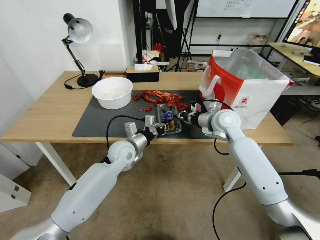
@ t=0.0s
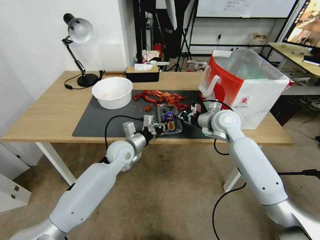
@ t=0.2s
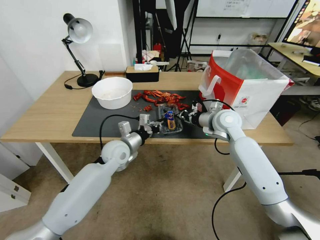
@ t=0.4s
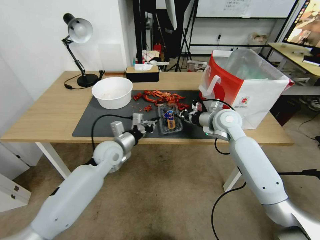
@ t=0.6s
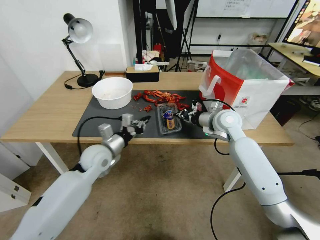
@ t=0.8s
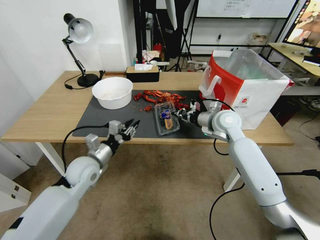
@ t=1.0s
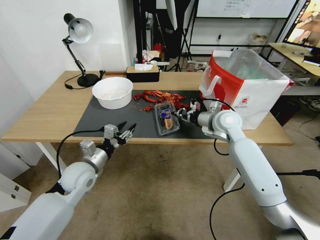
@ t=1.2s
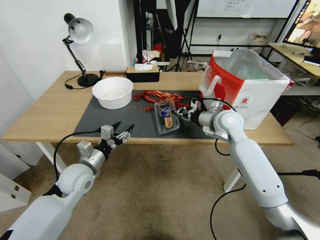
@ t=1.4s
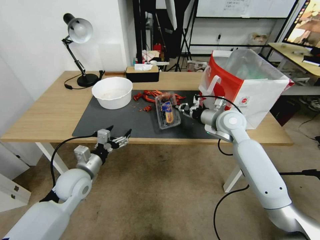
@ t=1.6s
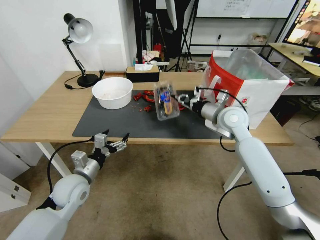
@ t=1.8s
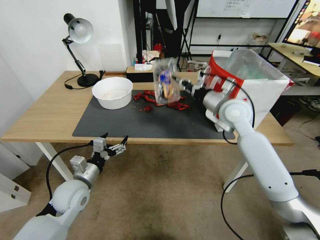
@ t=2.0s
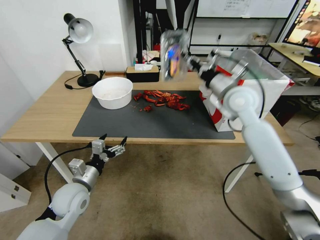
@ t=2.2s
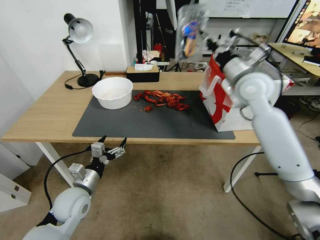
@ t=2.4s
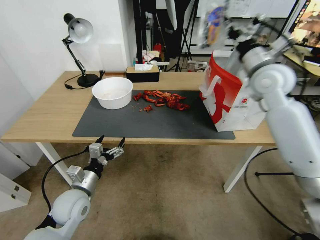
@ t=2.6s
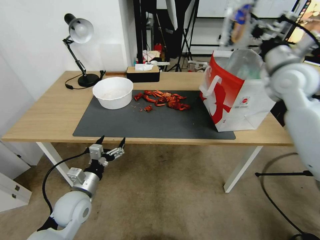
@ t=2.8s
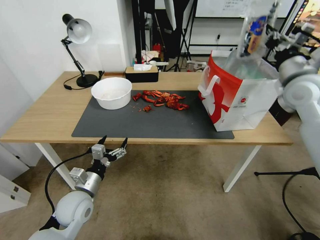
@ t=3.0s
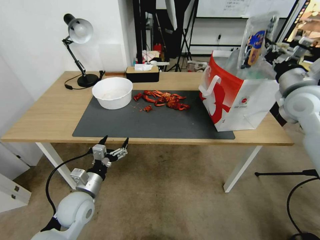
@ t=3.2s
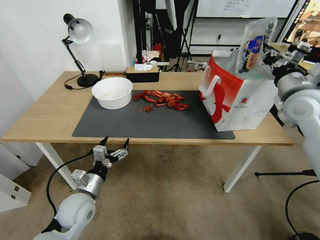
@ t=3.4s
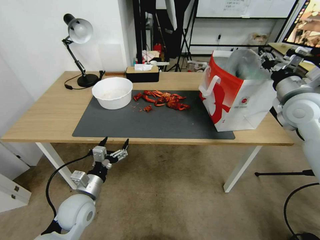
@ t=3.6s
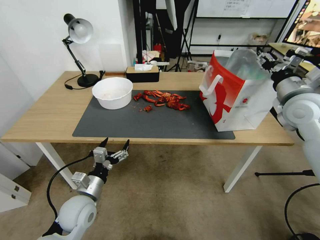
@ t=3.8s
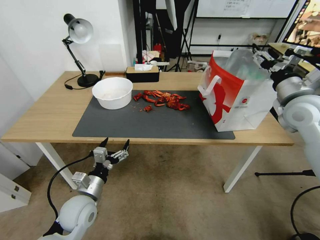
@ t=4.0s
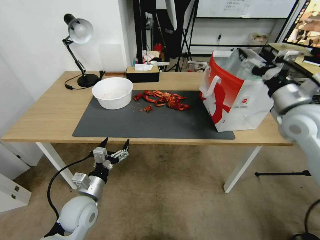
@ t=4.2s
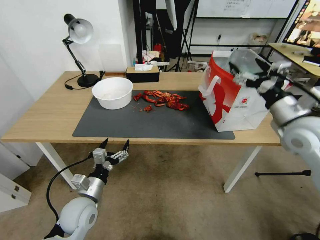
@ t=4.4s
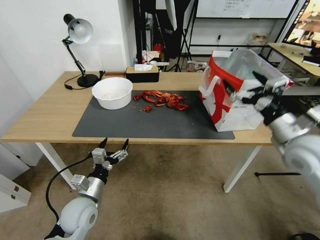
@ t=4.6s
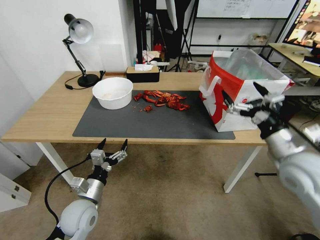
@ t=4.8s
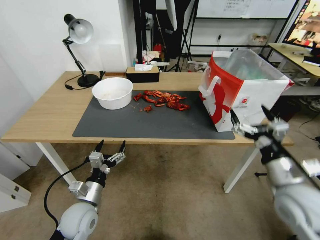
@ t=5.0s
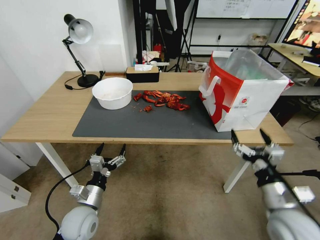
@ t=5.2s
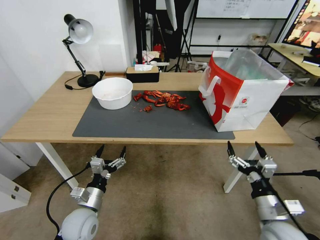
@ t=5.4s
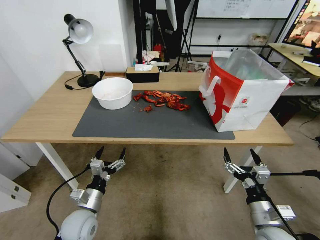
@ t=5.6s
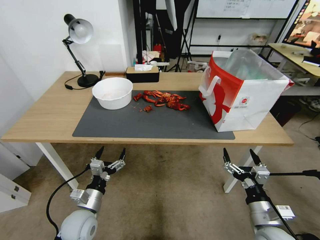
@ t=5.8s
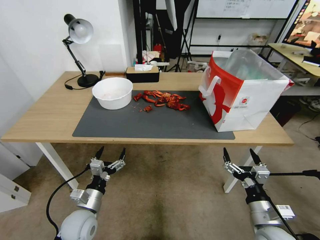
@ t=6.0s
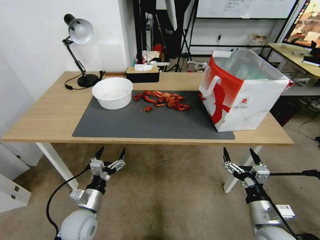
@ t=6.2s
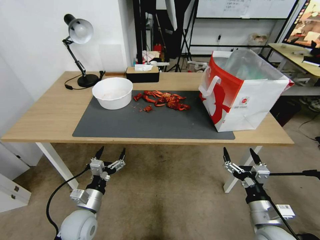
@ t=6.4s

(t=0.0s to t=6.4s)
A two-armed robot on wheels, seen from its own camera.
Task of the whole recording: Close the takeout container lid, then place the container into the takeout bag.
t=0.0s - t=1.6s: The left gripper moves to the left and backward, about 15 cm, and opens up.
t=1.6s - t=3.2s: The right gripper heads to the right and upward, covering approximately 20 cm; the left gripper shifts some 5 cm backward.
t=3.2s - t=4.8s: The right gripper heads backward and downward, covering roughly 20 cm, and opens.
t=4.8s - t=6.4s: The right gripper travels downward and backward by approximately 20 cm.
